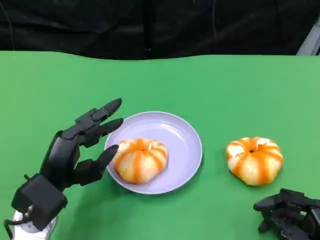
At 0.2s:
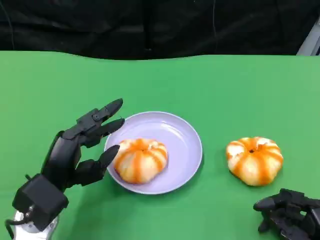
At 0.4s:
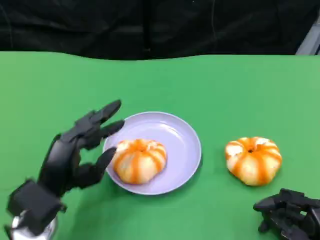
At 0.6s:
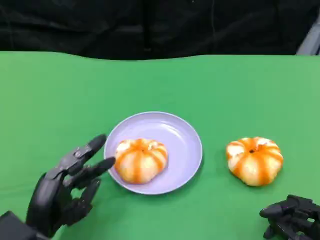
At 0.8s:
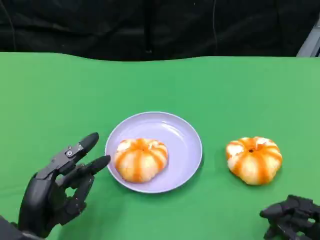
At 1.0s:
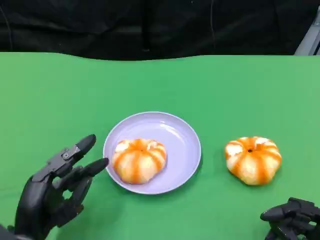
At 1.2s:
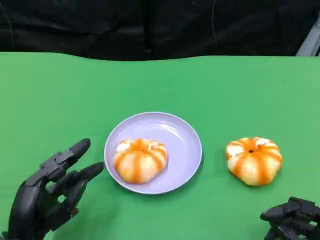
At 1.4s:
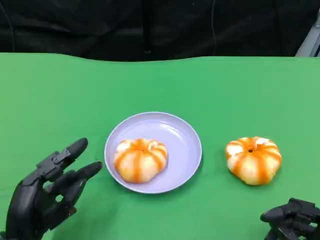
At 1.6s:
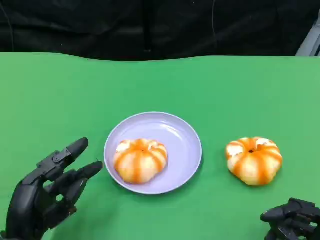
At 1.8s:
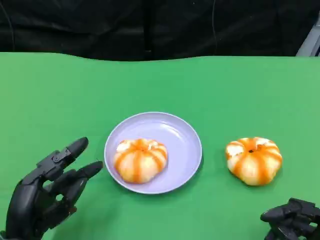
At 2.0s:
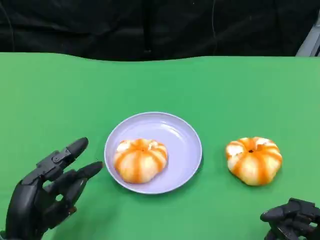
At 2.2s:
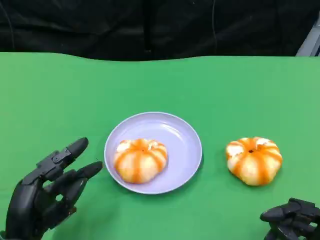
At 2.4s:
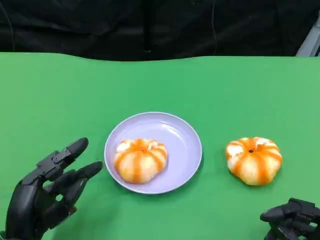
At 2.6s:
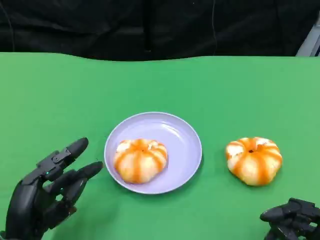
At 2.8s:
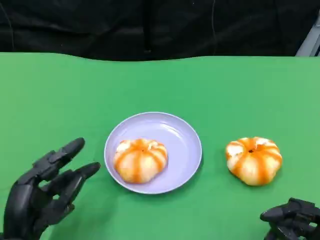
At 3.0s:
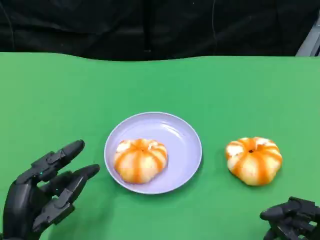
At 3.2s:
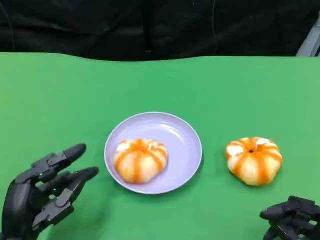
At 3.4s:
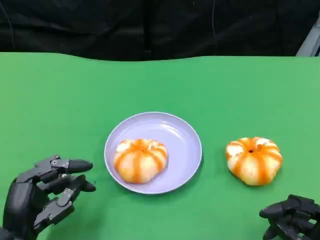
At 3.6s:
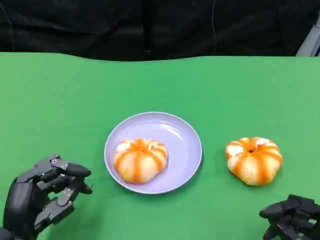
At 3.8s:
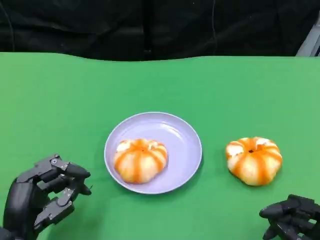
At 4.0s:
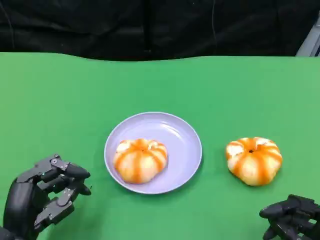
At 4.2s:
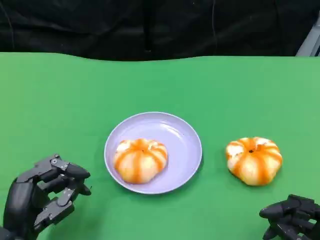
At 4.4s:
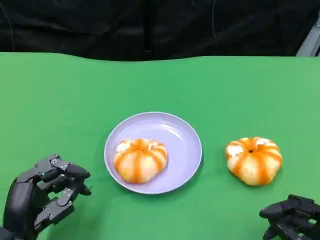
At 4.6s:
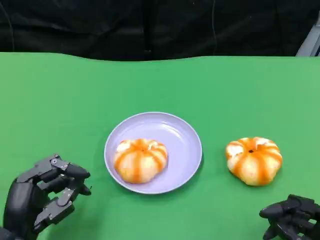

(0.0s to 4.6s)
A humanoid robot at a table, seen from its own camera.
Task of the whole recording: Grasp the bread from the table and place it into the plate.
0.0s - 1.6s: The left hand moves backward, roughly 5 cm.
1.6s - 3.0s: Both hands stay put.
3.0s - 4.6s: The hands stay close to where they were, moving slightly.

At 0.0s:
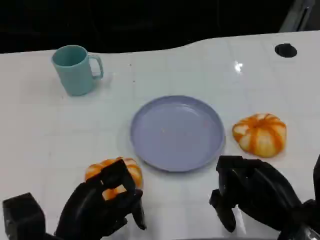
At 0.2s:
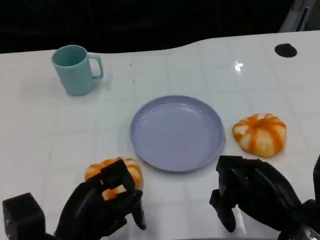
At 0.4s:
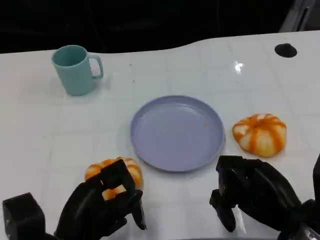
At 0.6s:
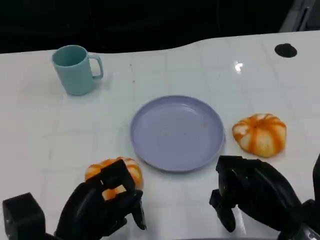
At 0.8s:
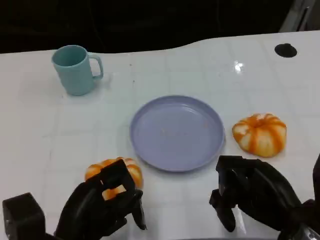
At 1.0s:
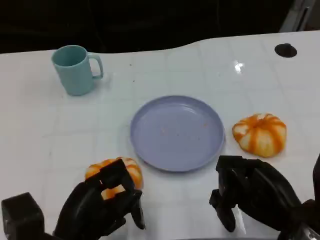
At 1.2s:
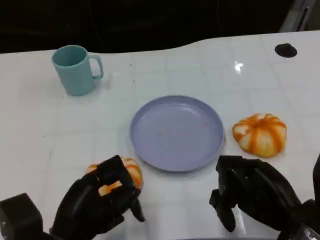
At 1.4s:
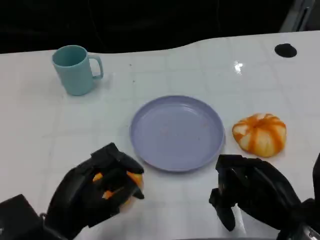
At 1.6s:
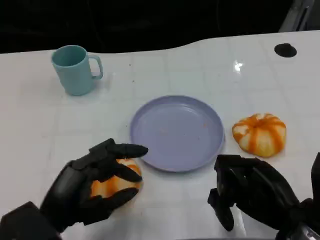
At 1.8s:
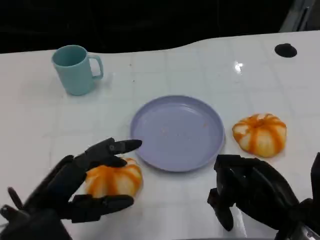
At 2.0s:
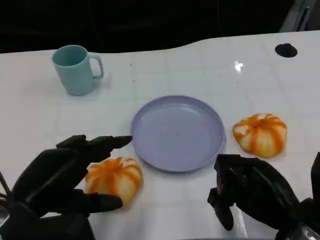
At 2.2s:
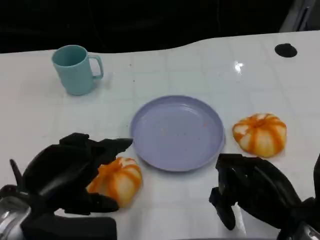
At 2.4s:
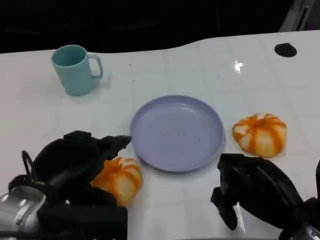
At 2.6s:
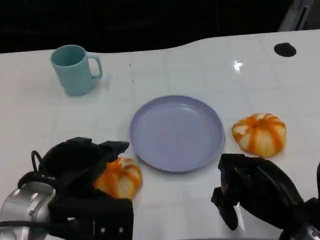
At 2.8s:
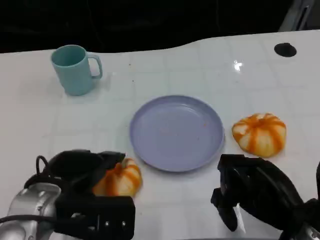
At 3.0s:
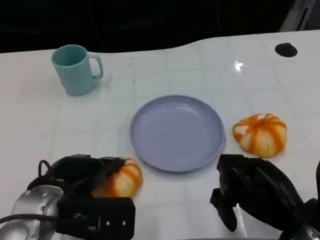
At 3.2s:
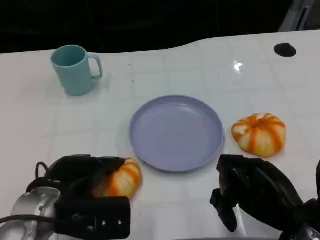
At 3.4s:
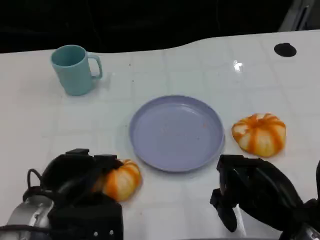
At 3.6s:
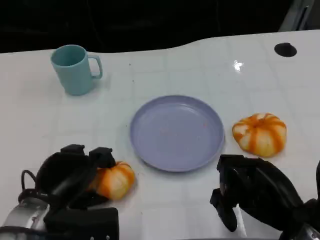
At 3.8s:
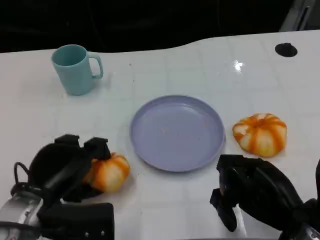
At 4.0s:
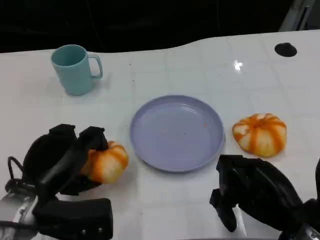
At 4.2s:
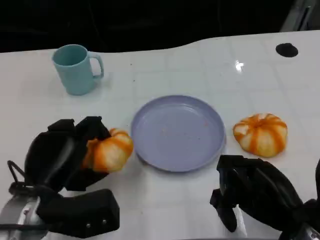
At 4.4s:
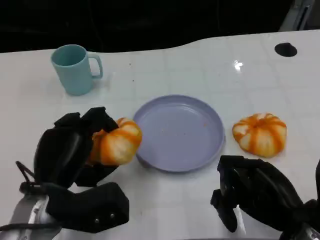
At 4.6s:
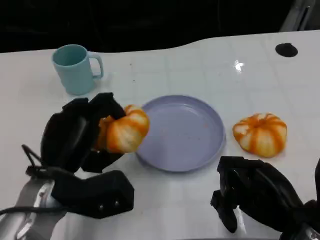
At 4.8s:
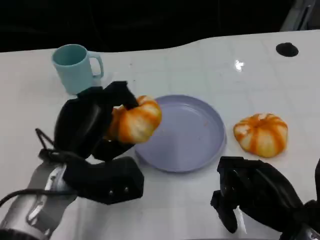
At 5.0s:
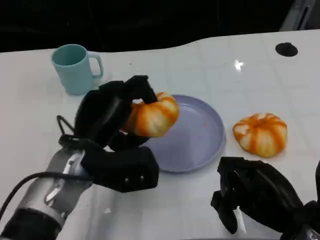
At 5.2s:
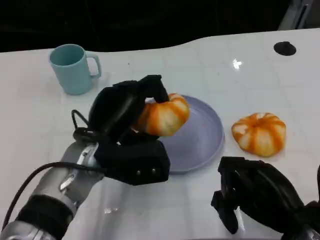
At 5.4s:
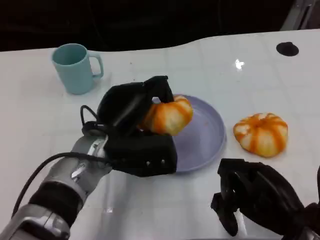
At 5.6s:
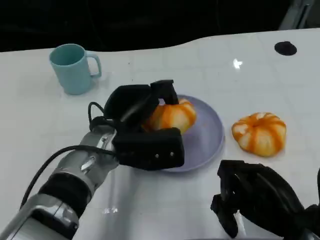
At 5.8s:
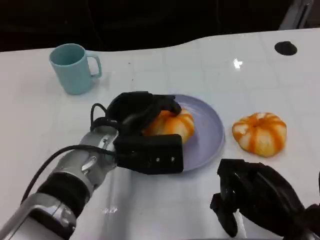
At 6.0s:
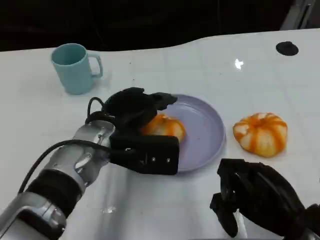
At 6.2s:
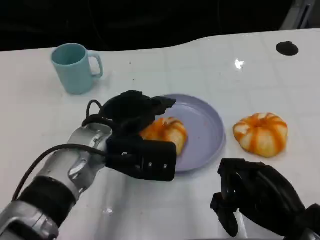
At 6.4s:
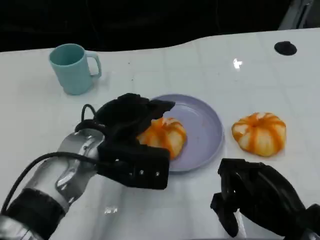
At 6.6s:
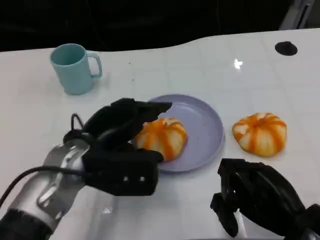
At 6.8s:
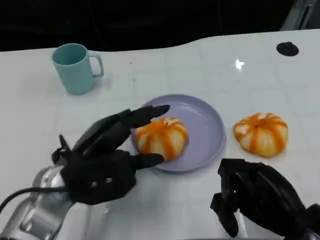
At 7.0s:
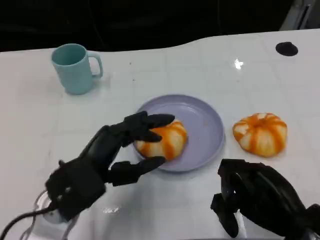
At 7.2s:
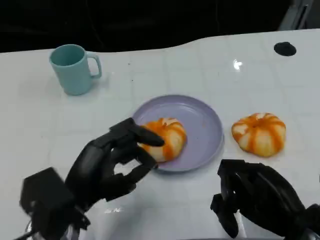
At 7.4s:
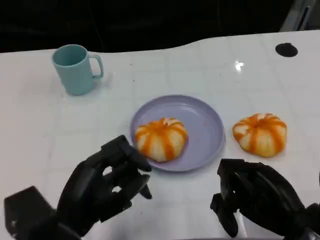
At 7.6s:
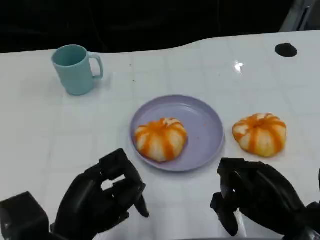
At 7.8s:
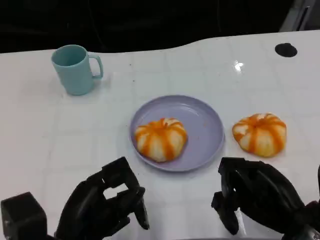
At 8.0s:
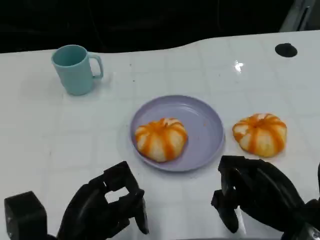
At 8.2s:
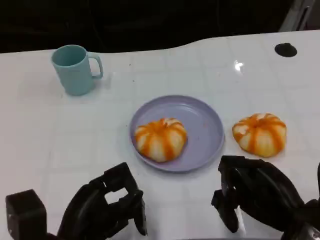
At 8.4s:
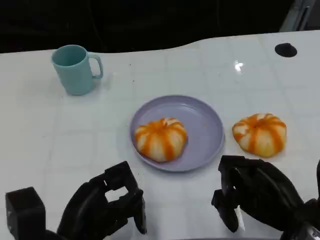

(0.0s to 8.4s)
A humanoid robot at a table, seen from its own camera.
Task of the whole recording: Grasp the bread from the table and place it into the plate.
1.4s - 2.8s: The left hand shifts by approximately 5 cm.
4.2s - 5.6s: The left hand moves to the right and forward, some 15 cm.
5.6s - 7.0s: The left hand travels backward and to the left by about 10 cm.
7.0s - 8.4s: The left hand heads backward, covering about 5 cm.

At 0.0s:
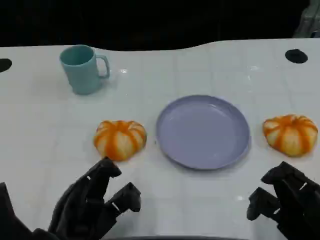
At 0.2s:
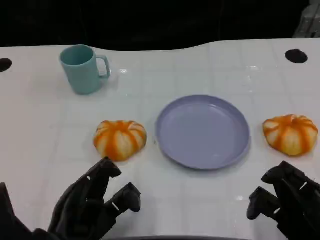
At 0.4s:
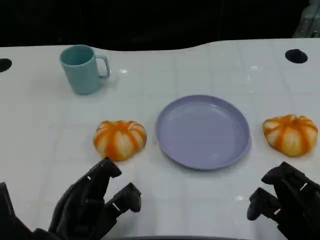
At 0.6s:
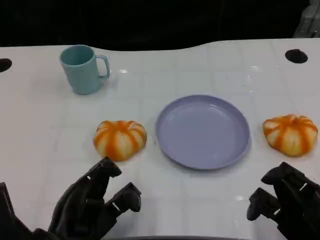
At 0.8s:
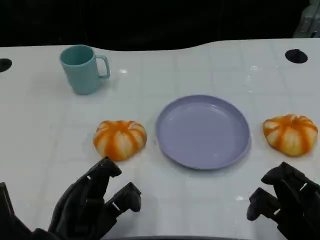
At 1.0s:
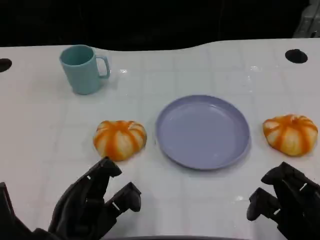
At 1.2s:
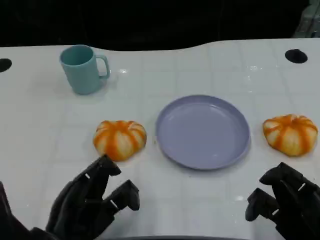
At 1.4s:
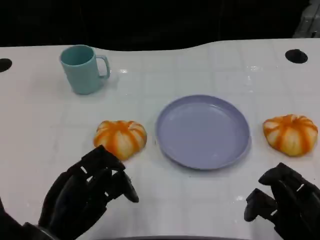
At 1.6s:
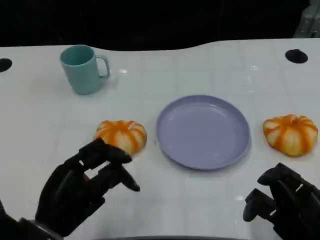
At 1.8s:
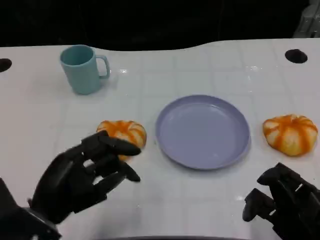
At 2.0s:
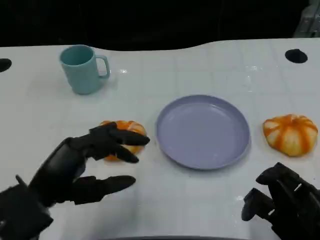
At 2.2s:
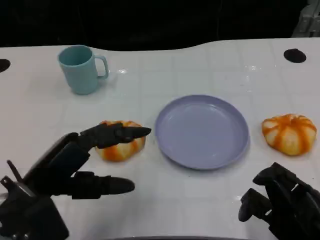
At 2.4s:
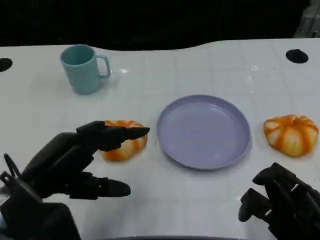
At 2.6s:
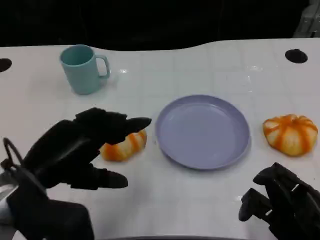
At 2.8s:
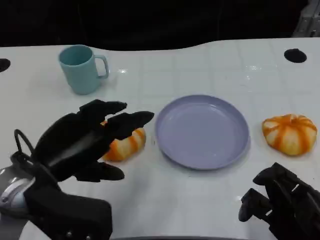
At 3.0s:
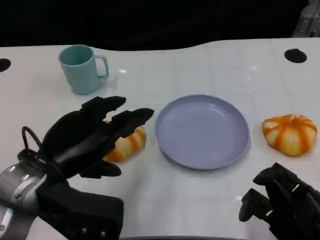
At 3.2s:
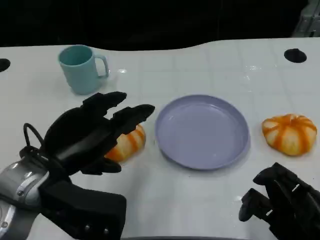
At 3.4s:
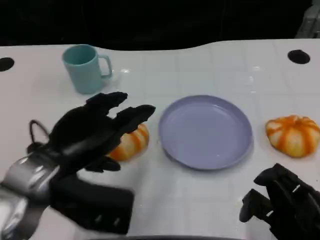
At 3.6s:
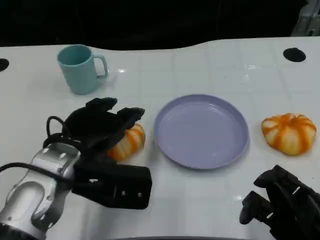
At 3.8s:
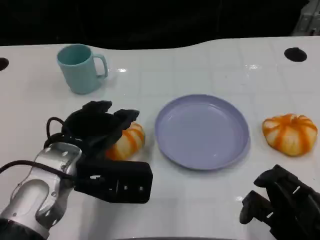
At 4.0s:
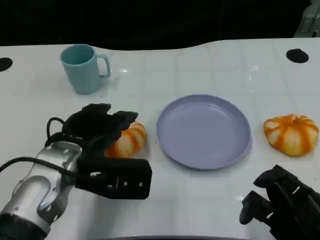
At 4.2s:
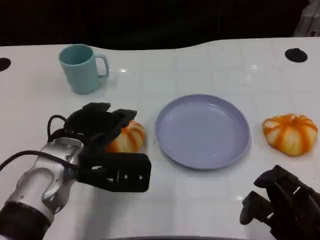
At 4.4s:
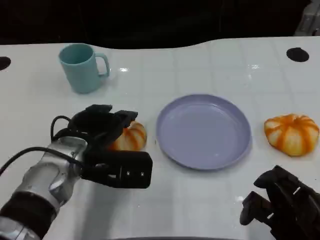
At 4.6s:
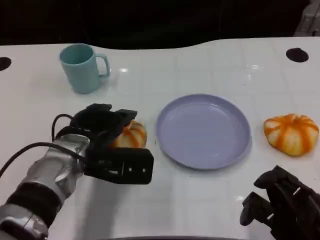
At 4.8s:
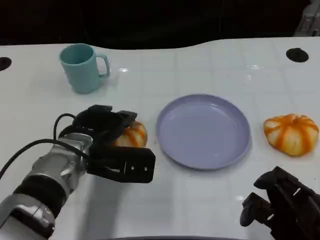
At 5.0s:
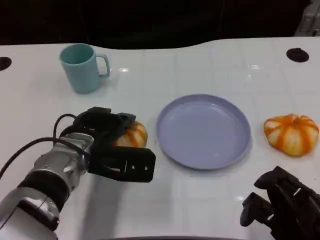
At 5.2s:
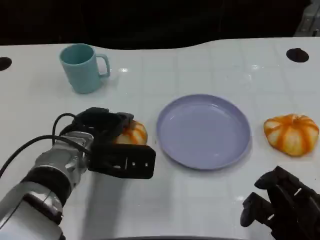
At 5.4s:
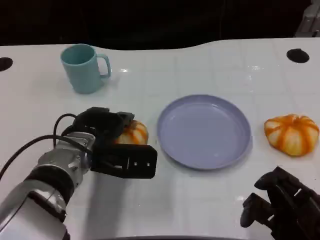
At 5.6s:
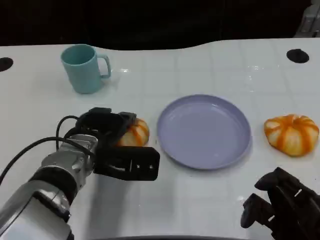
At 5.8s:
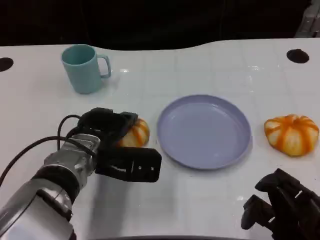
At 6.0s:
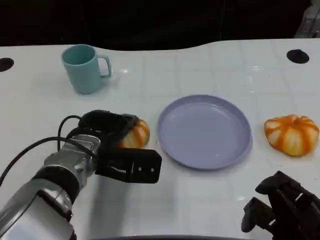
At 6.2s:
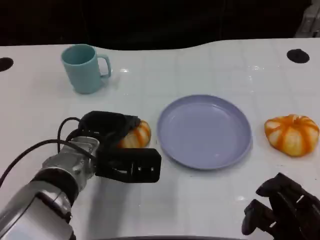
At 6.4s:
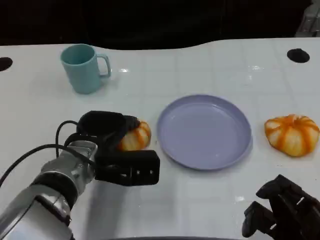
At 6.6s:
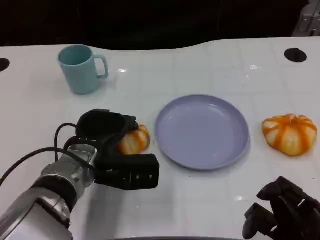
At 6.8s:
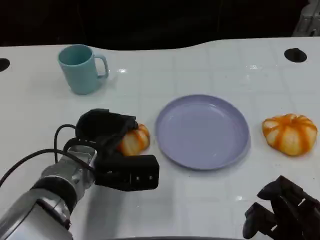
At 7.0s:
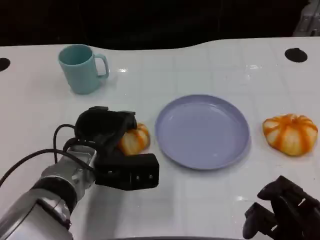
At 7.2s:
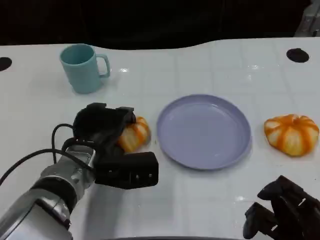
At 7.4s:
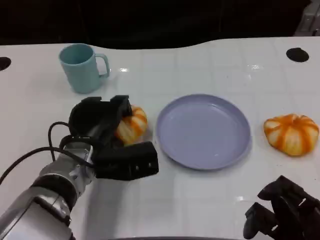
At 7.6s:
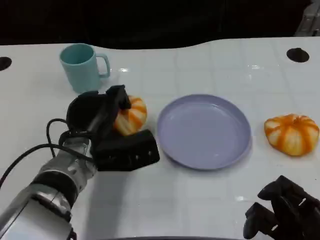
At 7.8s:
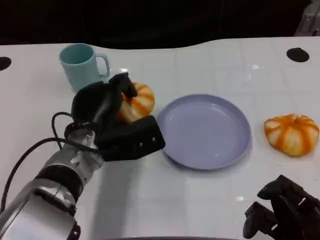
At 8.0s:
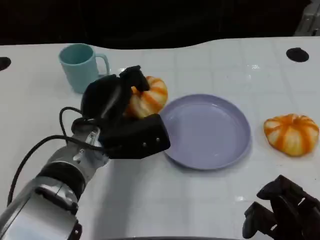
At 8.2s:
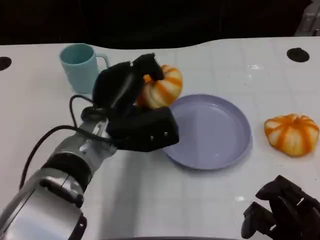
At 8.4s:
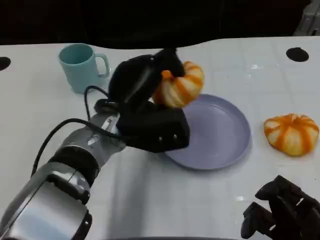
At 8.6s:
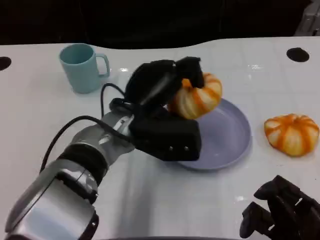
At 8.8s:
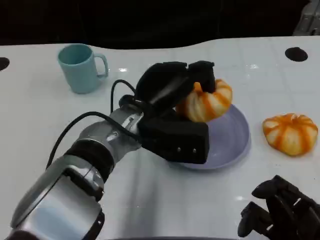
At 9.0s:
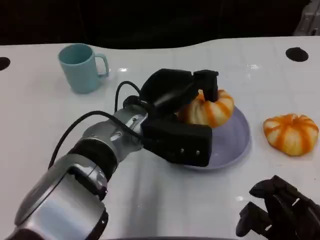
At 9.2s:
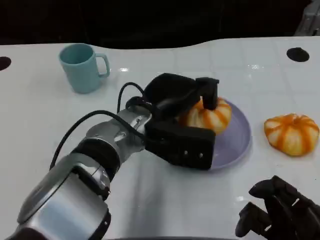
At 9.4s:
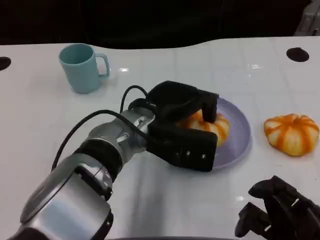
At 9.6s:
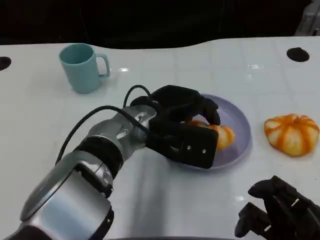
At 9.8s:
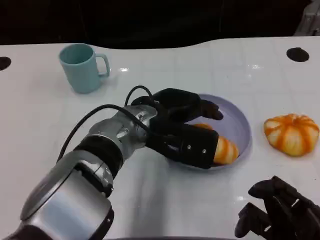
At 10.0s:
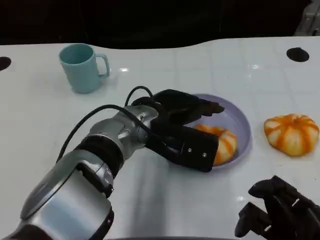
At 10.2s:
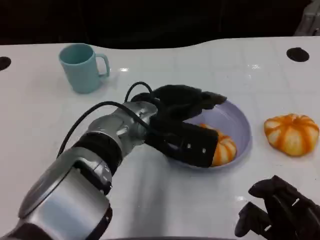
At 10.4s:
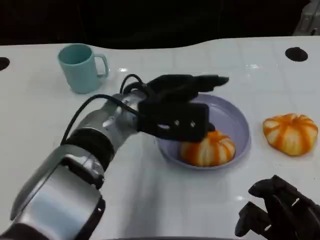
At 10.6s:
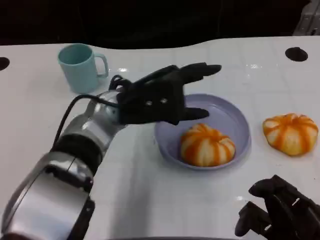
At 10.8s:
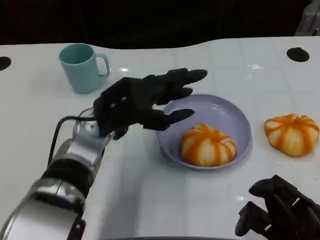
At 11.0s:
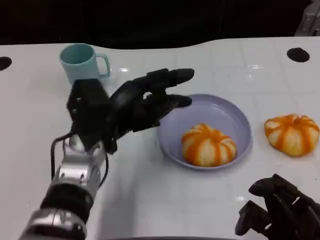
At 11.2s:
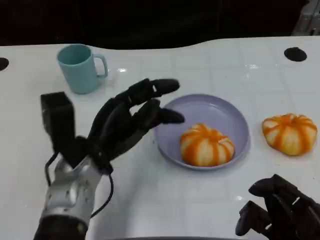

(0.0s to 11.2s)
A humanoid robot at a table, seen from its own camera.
Task of the whole recording: Grasp the bread from the table and place it into the plate.
1.6s - 3.2s: The left hand moves upward, roughly 10 cm.
3.2s - 4.8s: The left hand shifts roughly 10 cm forward and downward.
4.8s - 6.4s: The hands move only a little.
8.0s - 9.6s: The left hand heads to the right, covering roughly 5 cm.
9.6s - 11.2s: The left hand moves to the left, approximately 10 cm.
